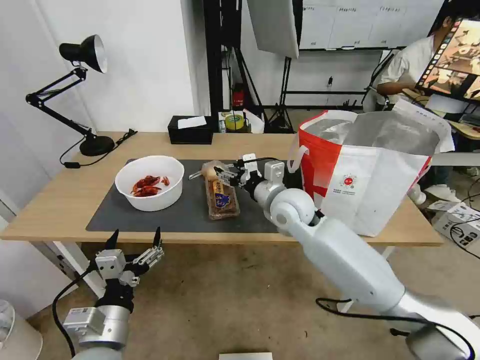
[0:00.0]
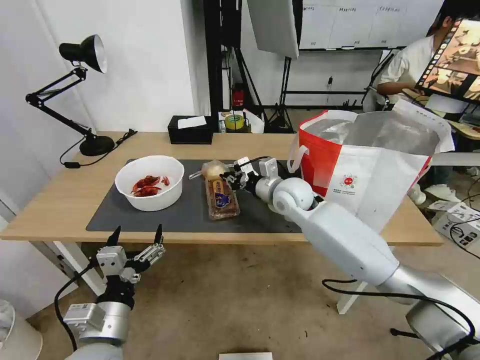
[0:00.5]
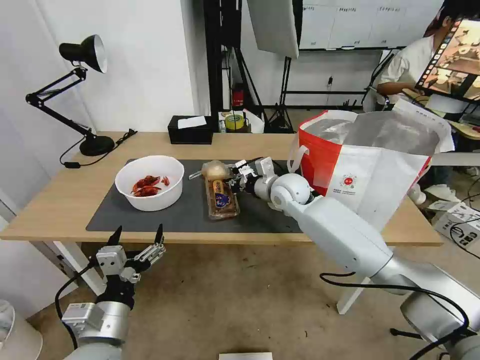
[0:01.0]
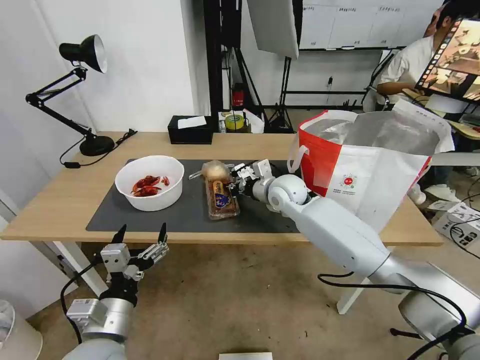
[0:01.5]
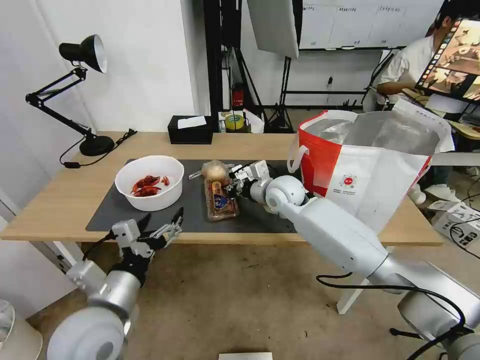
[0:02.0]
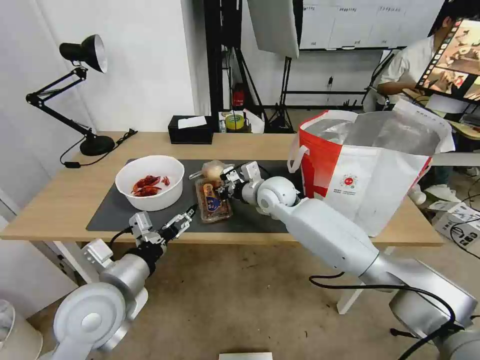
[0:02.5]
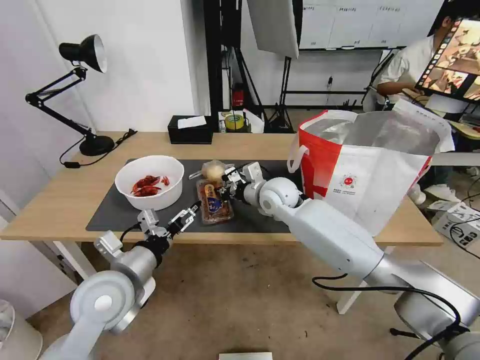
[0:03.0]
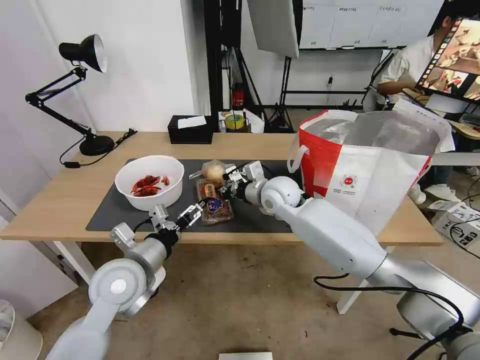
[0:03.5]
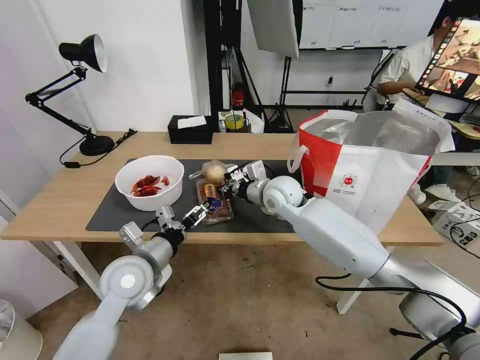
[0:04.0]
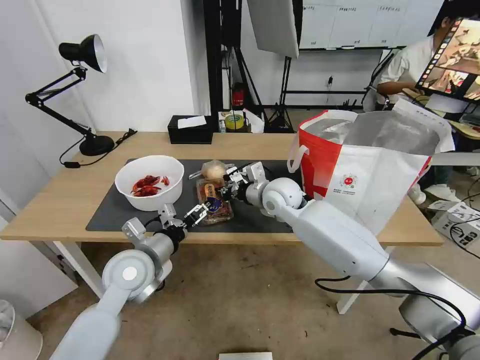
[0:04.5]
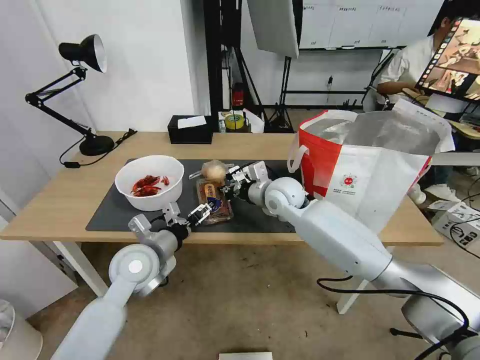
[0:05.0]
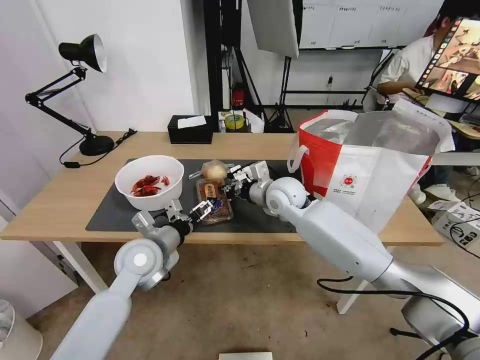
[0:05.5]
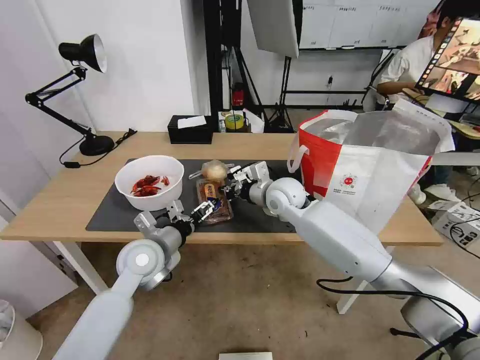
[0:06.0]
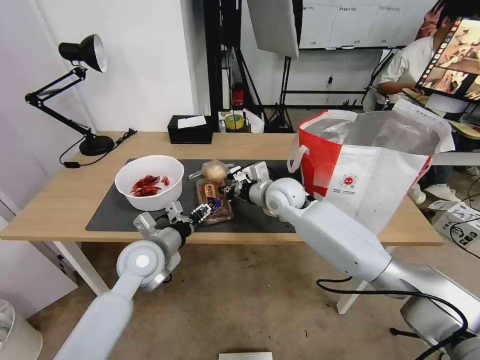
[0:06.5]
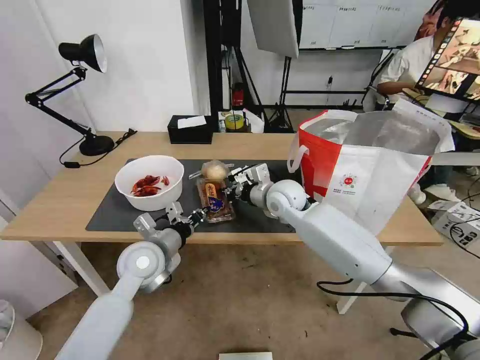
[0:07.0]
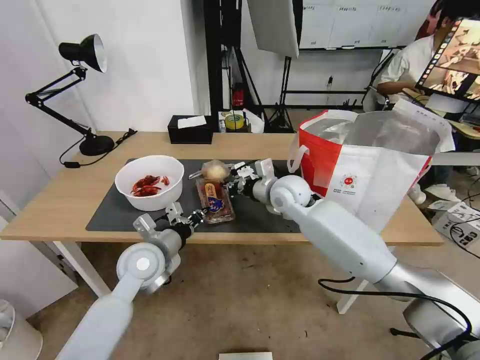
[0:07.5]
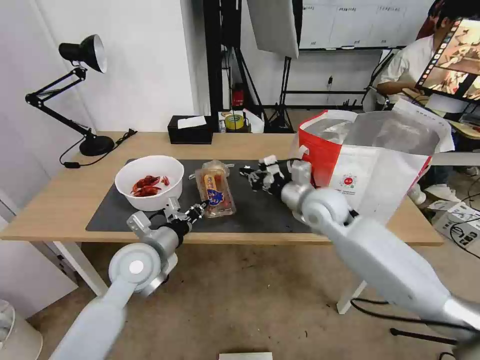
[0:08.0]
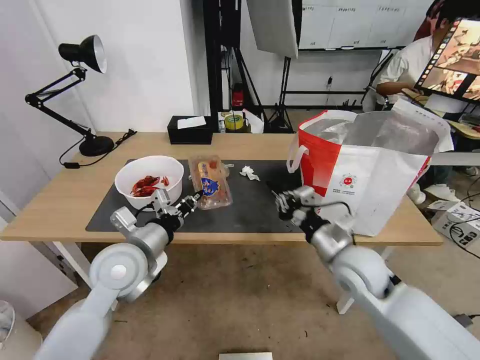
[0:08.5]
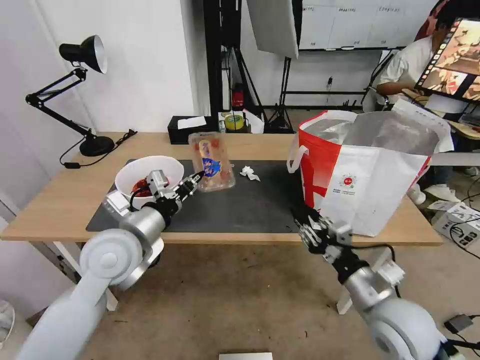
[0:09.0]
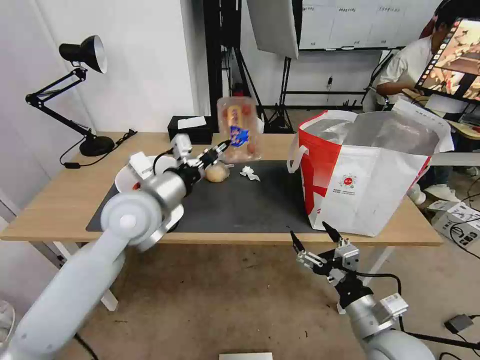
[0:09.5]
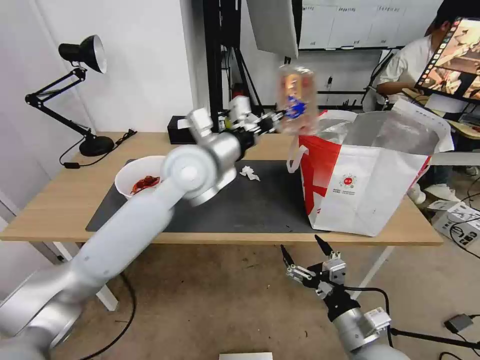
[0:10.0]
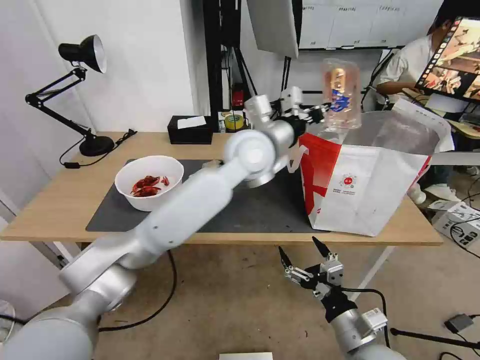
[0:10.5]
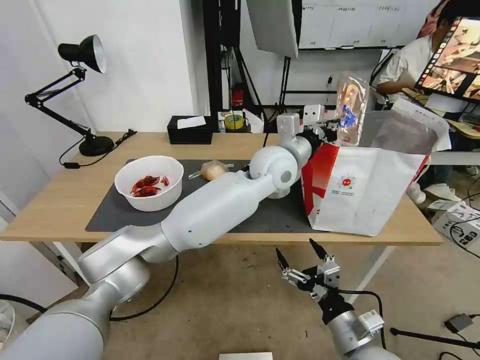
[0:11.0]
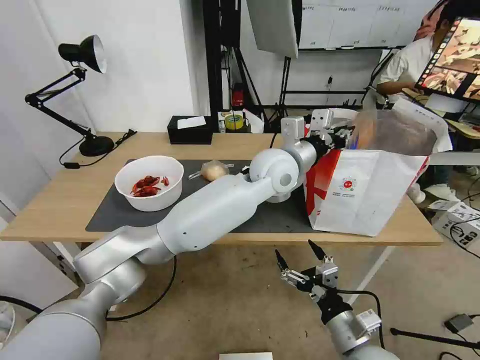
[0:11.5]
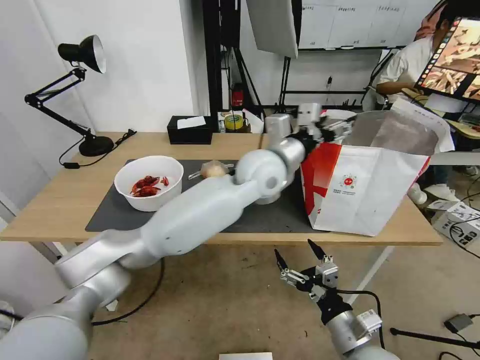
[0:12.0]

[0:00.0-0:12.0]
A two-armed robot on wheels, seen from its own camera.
Task of the whole recording: Pick up the trash from the table and place it into the takeout bag.
0:00.0 to 0:02.0: The left gripper heads upward, covering approximately 5 cm. Meanwhile the right gripper moves forward, approximately 10 cm, and closes.
0:02.0 to 0:04.0: The left gripper shifts some 10 cm forward.
0:04.0 to 0:06.0: The left gripper ends up approximately 5 cm from where it was.
0:06.0 to 0:08.0: The left gripper closes. Meanwhile the right gripper travels to the right and backward by some 10 cm.
0:08.0 to 0:10.0: The left gripper moves upward, to the right and forward, some 25 cm. The right gripper is displaced backward and downward by about 30 cm, and opens its fingers.
0:10.0 to 0:12.0: The left gripper moves to the right, some 15 cm, and opens its fingers.

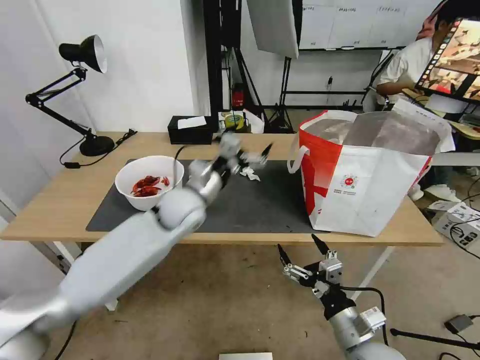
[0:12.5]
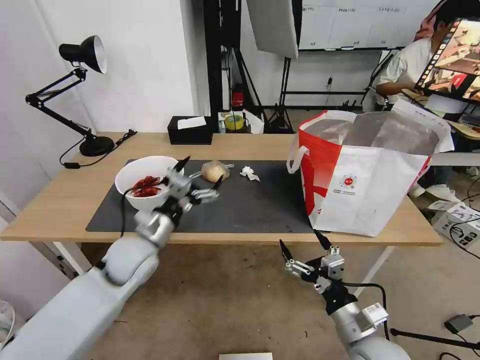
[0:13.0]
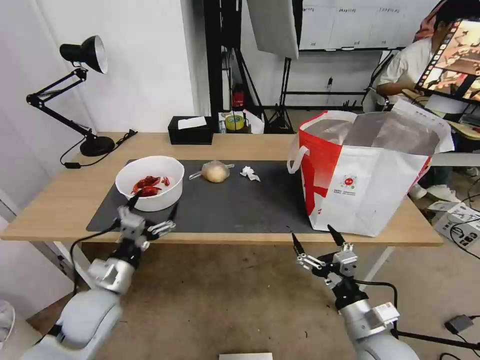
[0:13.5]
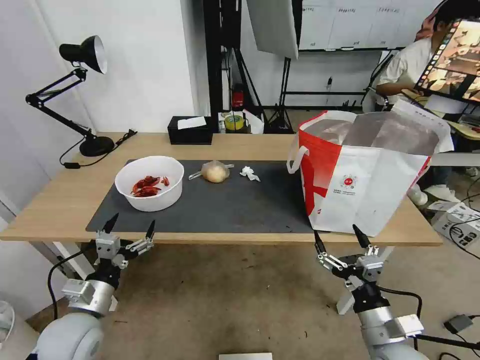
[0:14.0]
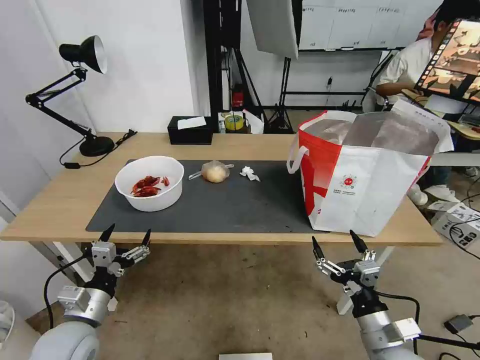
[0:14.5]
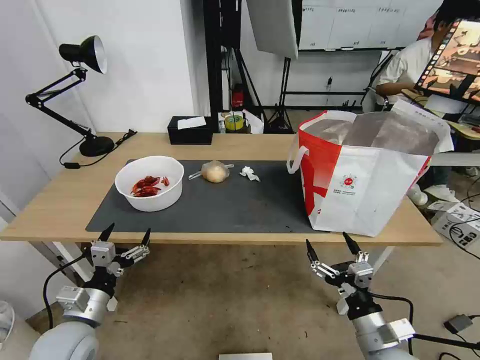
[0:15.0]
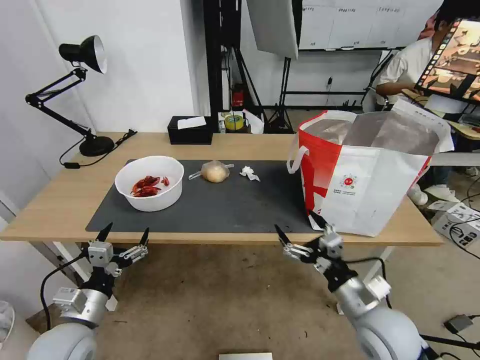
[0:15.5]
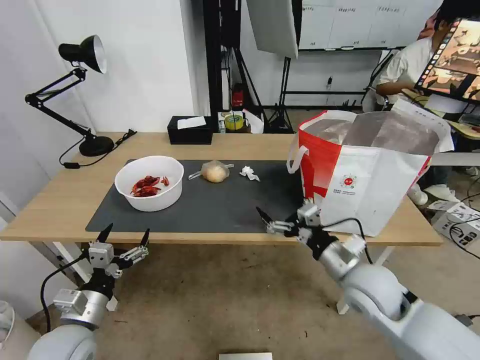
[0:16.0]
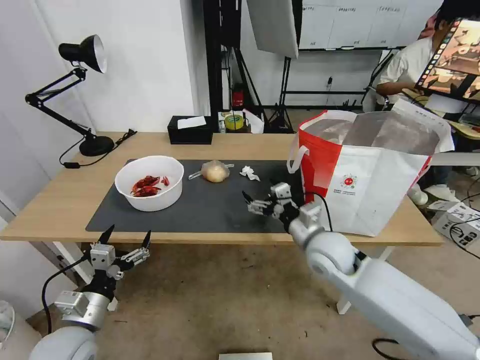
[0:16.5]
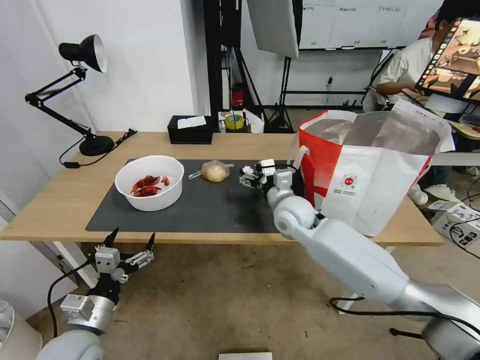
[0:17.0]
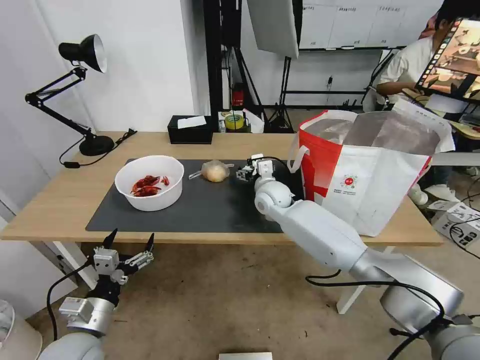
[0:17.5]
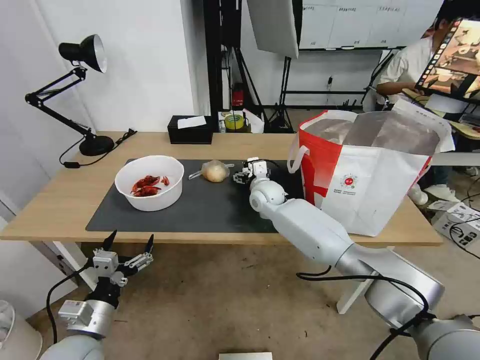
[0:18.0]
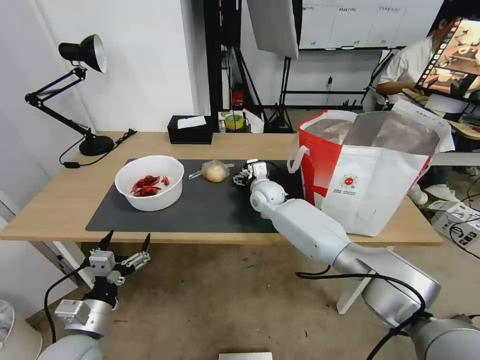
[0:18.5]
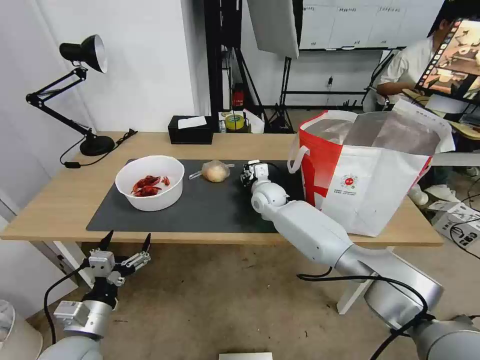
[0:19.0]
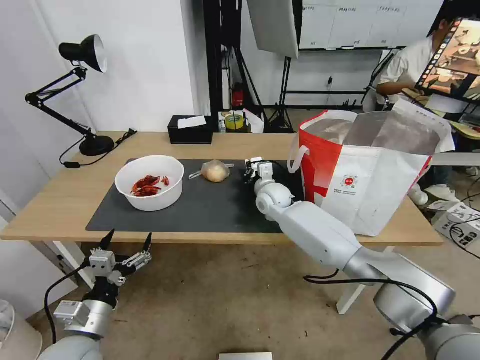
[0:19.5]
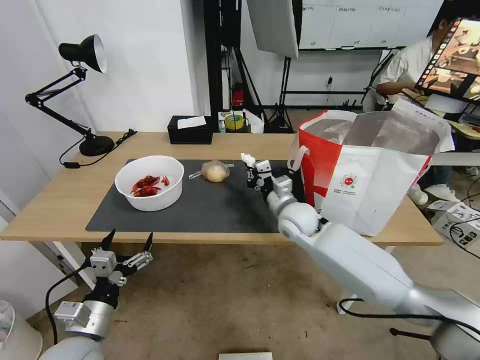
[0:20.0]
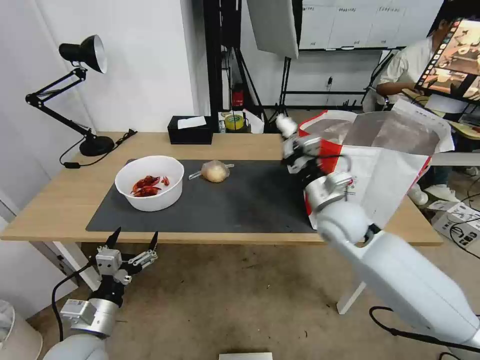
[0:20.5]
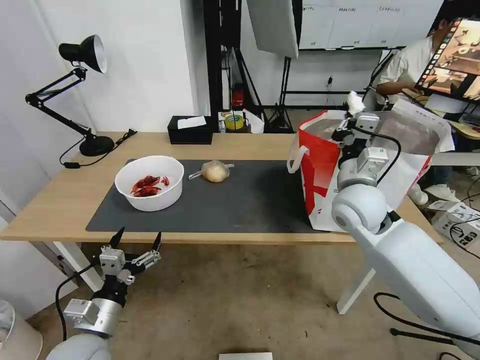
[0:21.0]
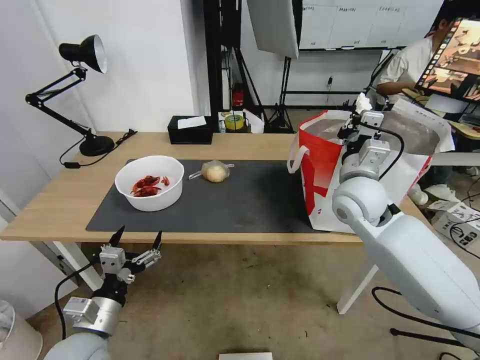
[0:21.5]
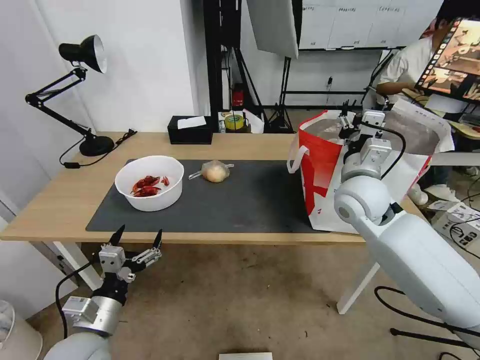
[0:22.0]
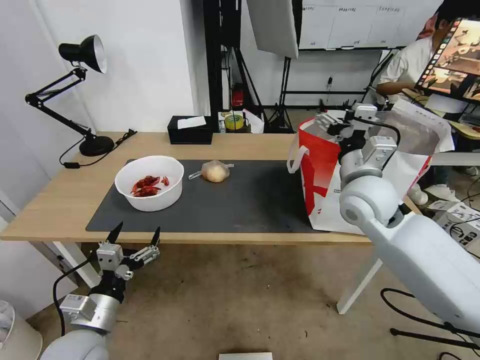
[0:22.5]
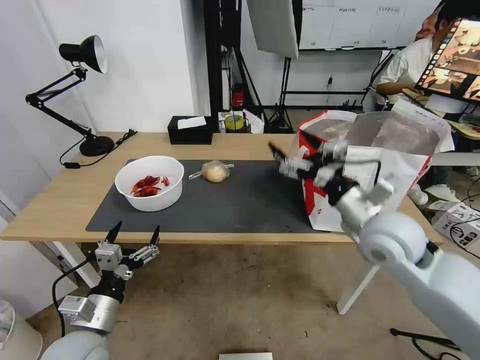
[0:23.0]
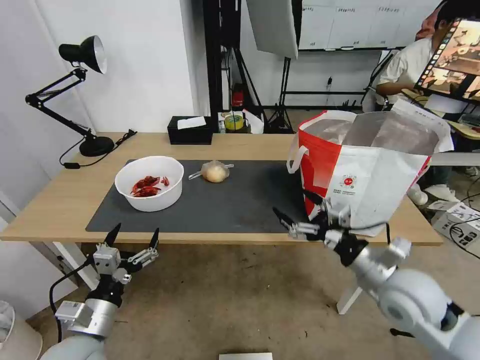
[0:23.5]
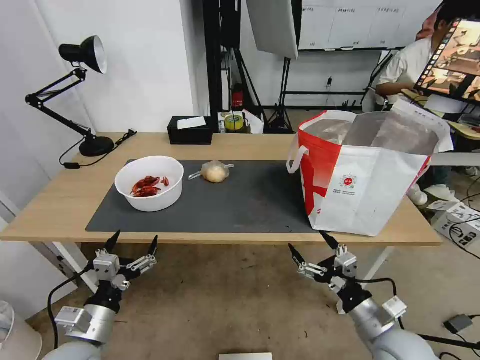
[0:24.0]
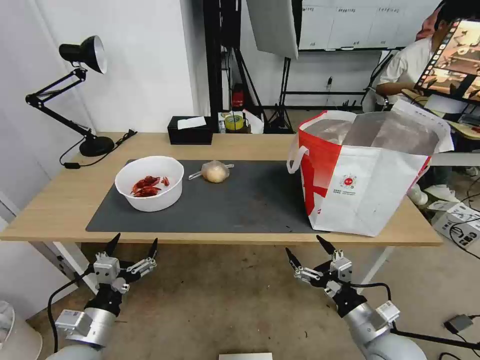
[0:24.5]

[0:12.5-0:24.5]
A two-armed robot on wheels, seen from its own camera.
Task of the whole recording: Pick up the trash from the table and place it into the takeout bag.
0:12.5 to 0:14.5: The left gripper travels backward, to the left and downward by some 35 cm.
0:14.5 to 0:16.5: The right gripper moves forward and to the left, some 25 cm.
0:16.5 to 0:18.5: The right gripper moves forward and to the left, roughly 20 cm.
0:18.5 to 0:20.5: The right gripper goes some 20 cm backward, to the right and upward, and closes up.
0:20.5 to 0:22.5: The right gripper moves upward, roughly 10 cm, and opens.
0:22.5 to 0:24.5: The right gripper shifts about 30 cm backward and downward.

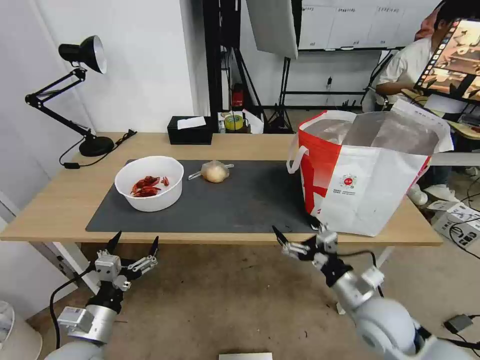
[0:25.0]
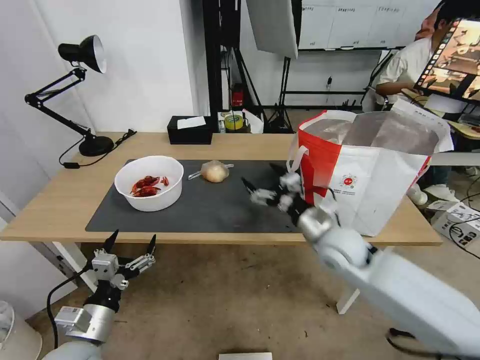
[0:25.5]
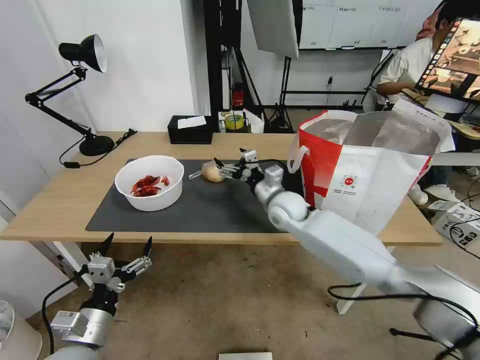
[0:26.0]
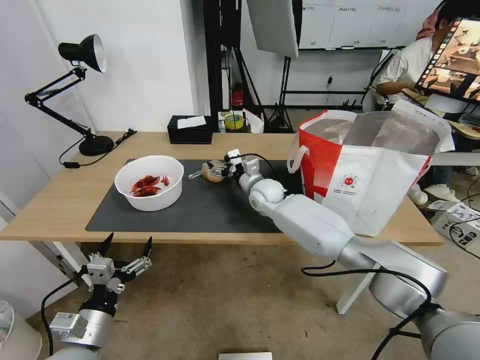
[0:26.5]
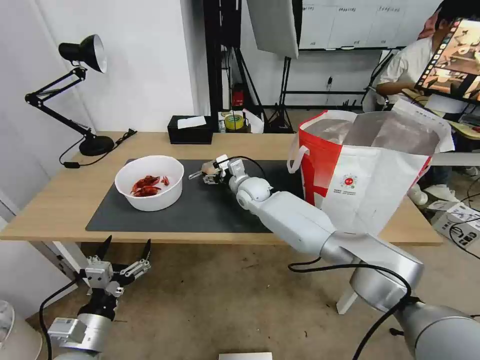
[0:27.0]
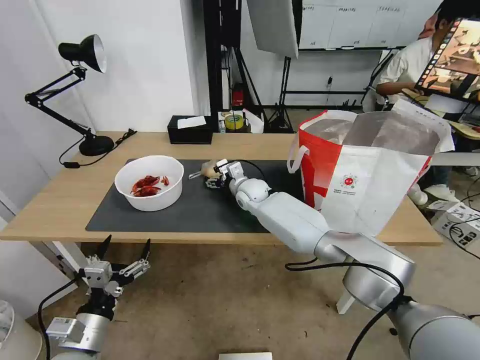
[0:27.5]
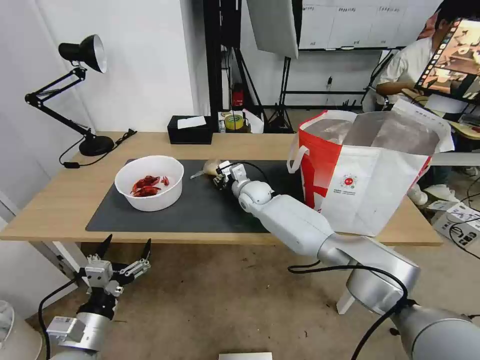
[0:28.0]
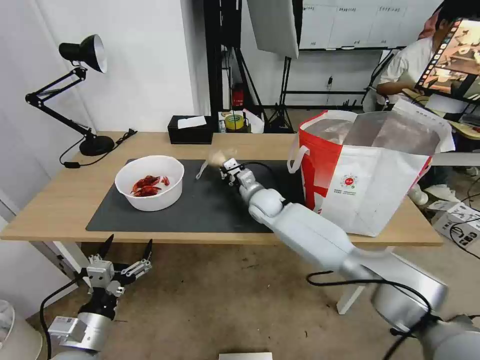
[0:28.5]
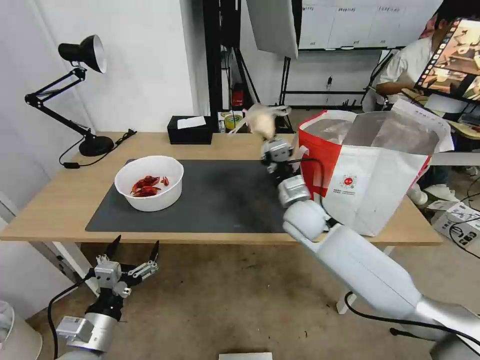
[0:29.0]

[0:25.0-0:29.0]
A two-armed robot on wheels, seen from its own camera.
Task of the whole recording: Pick up the trash from the table and place it into the takeout bag.
0:25.0 to 0:27.0: The right gripper goes approximately 40 cm forward and to the left.
0:27.0 to 0:29.0: The right gripper moves backward and to the right, some 15 cm, and closes its fingers.
